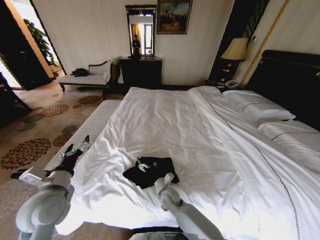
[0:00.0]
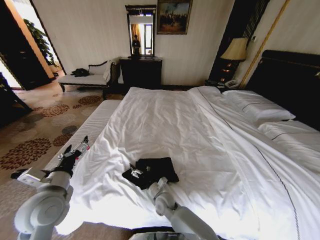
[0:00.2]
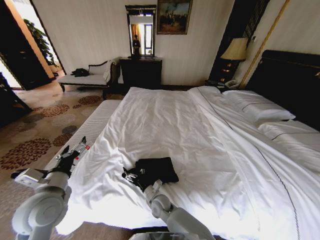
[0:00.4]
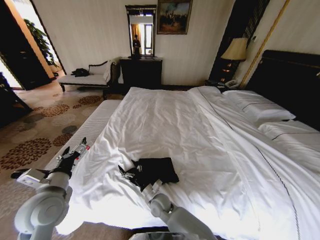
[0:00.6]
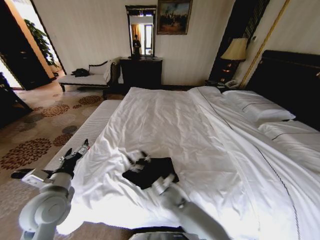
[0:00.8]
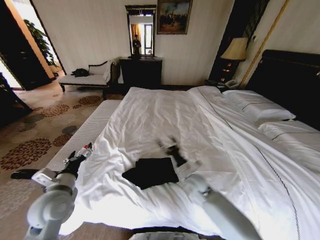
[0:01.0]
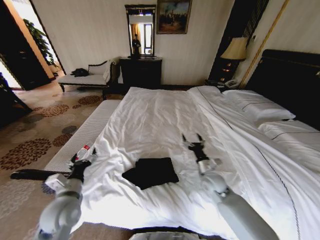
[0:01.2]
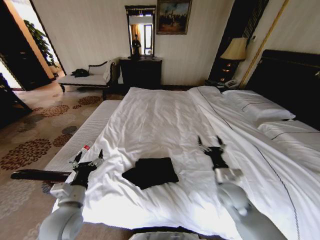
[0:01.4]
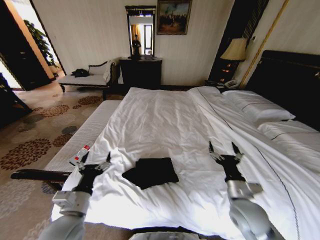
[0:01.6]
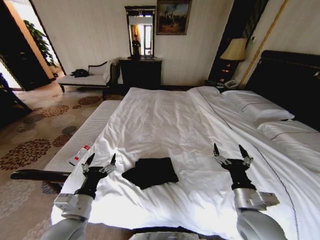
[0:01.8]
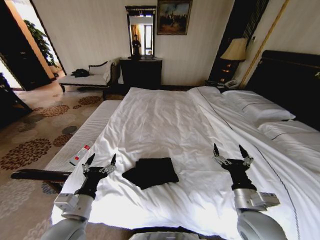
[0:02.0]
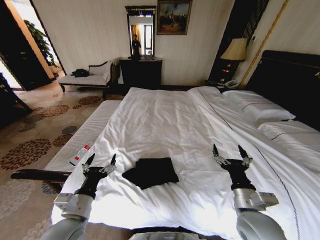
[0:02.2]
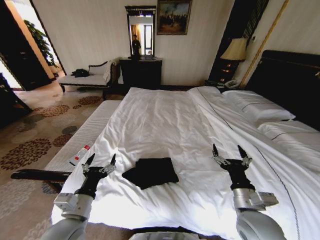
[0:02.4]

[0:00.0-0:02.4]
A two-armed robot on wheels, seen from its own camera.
Task of the whole recording: Fold the clothes on the bed.
0:00.0 to 0:01.2: The right gripper goes approximately 20 cm to the right and upward, while the left gripper goes some 5 cm downward.
0:01.2 to 0:02.4: The right gripper goes approximately 20 cm backward and upward. Meanwhile the left gripper travels backward and to the right by some 10 cm.

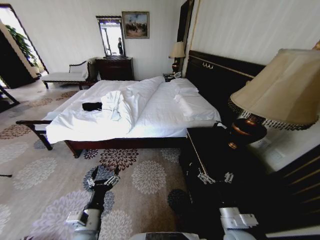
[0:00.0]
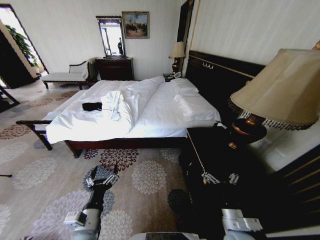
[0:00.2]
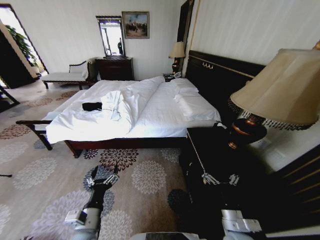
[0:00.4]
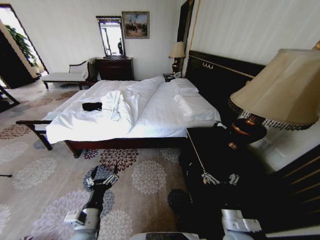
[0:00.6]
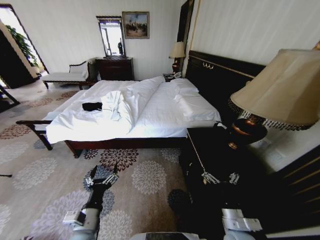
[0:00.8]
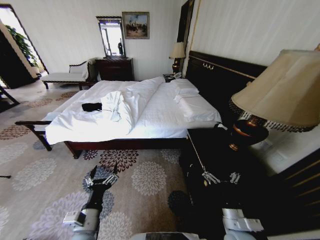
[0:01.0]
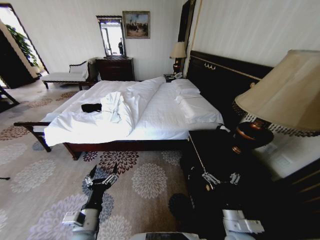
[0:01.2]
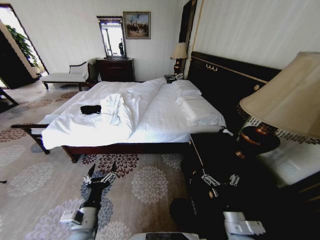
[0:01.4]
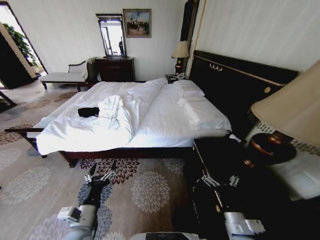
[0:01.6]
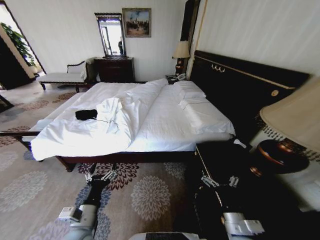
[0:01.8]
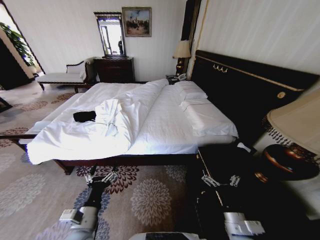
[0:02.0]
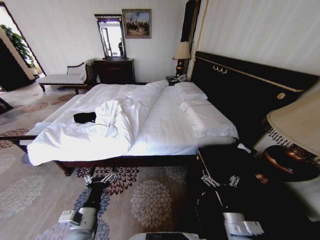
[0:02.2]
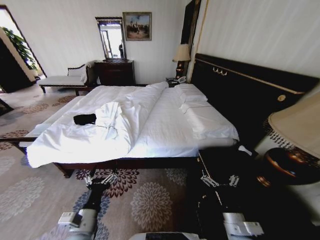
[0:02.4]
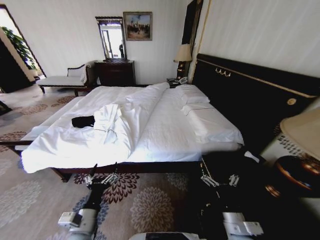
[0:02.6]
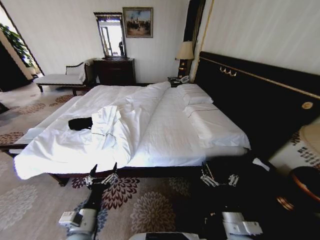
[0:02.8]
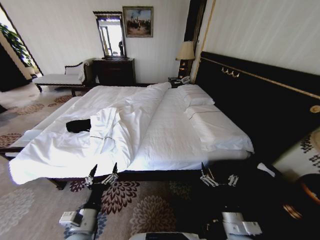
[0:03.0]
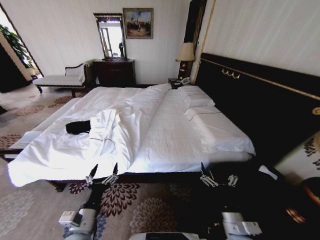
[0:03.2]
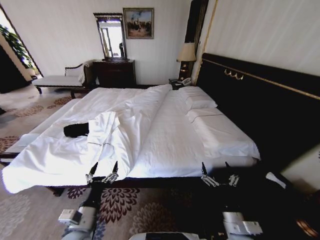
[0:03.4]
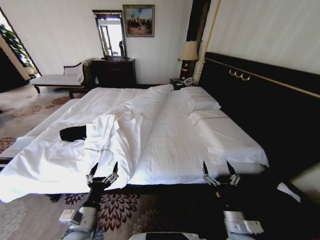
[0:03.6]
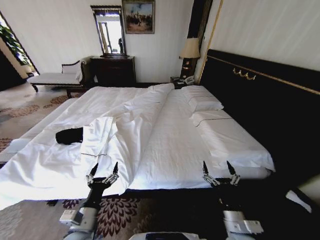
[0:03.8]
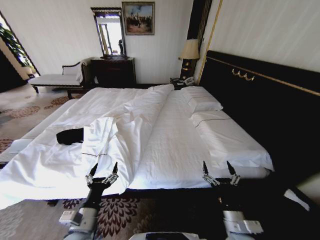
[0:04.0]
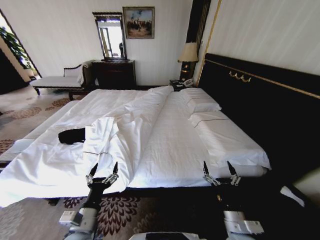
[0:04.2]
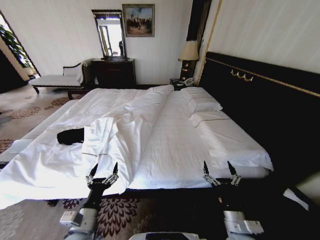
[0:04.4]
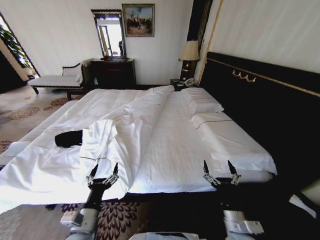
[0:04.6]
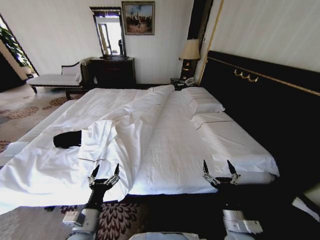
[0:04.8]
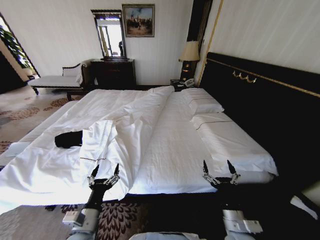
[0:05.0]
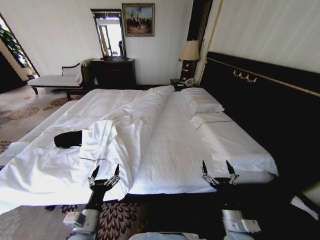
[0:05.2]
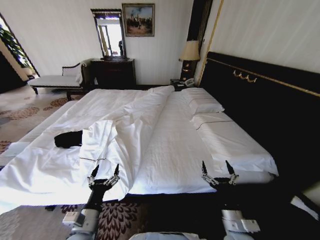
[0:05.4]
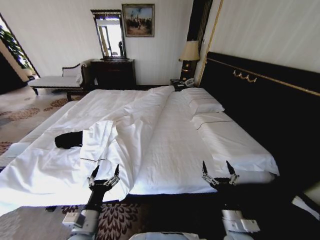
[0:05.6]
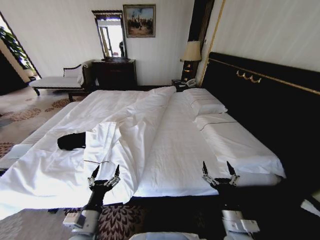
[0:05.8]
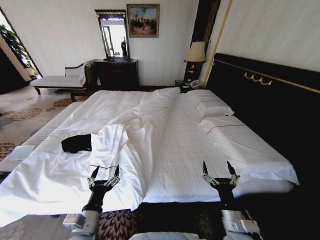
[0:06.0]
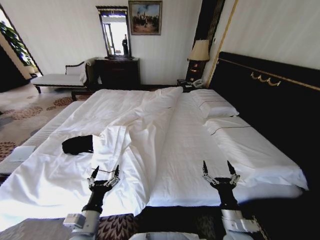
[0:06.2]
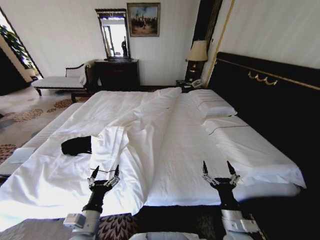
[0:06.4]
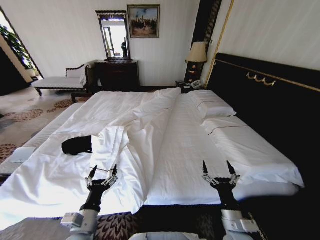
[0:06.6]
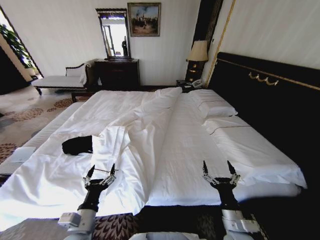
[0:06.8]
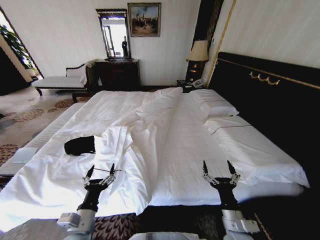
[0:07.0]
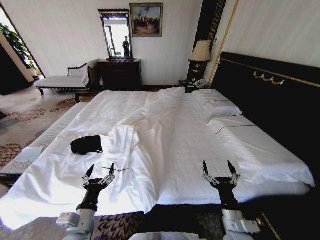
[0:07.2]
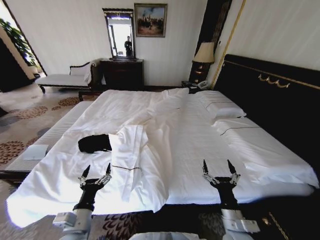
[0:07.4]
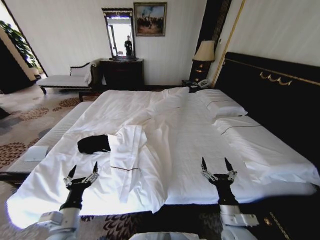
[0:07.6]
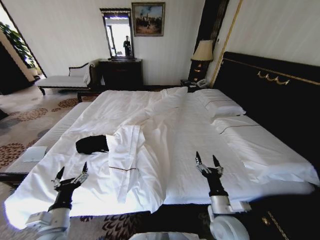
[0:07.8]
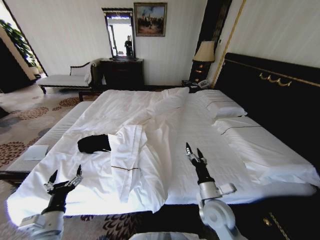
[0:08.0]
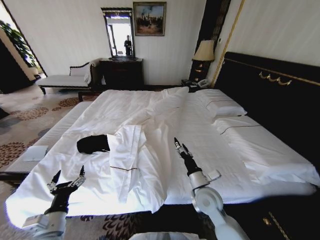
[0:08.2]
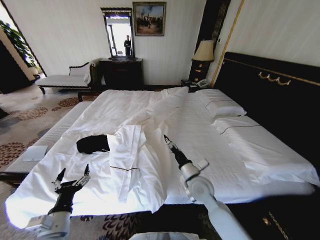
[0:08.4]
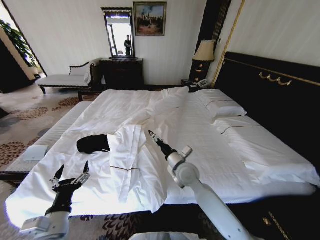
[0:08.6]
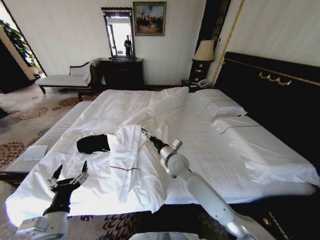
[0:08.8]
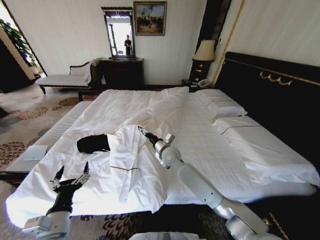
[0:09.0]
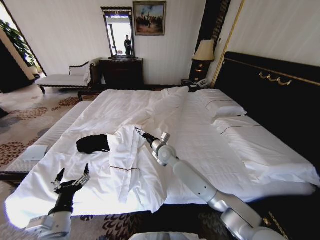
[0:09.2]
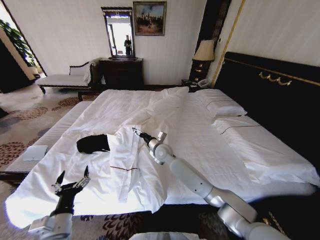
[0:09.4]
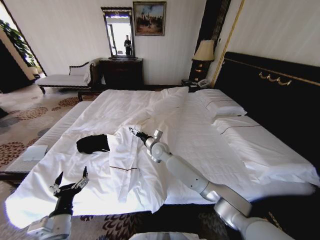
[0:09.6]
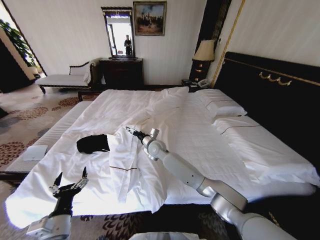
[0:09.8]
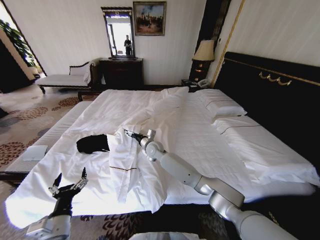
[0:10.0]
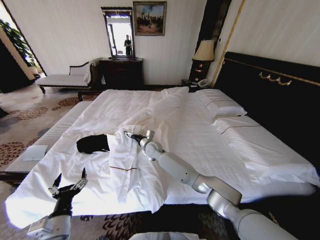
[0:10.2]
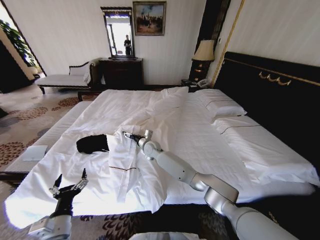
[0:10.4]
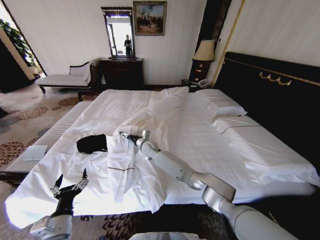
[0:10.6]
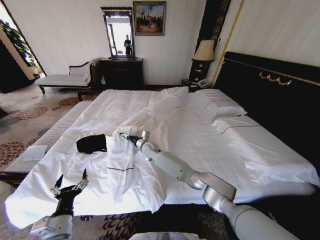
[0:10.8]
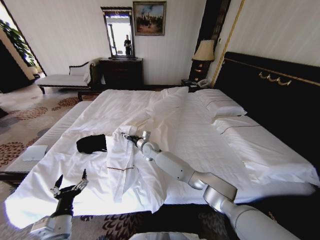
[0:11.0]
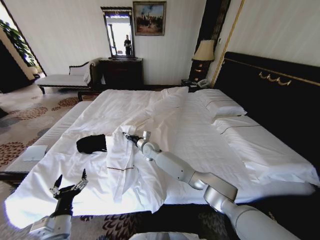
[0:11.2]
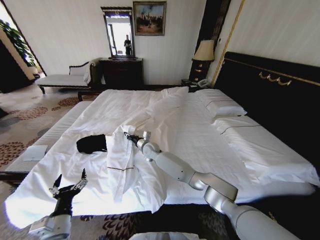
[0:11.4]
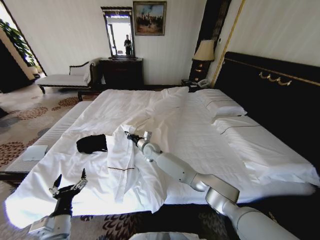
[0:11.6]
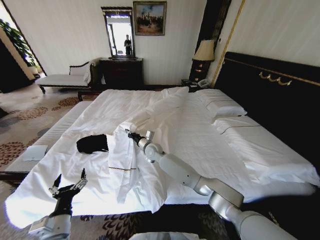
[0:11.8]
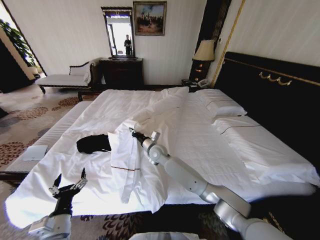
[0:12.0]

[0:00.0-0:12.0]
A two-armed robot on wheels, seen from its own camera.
Task of the whole recording: Fold the clothes on the bed.
0:06.0 to 0:07.6: The left gripper goes some 5 cm to the left.
0:07.6 to 0:09.0: The right gripper heads forward and to the left, covering approximately 35 cm.
0:09.0 to 0:10.4: The right gripper travels to the left and forward by about 10 cm.
0:10.4 to 0:12.0: The right gripper moves approximately 5 cm, and closes.

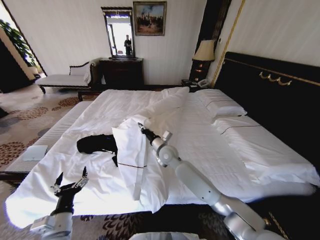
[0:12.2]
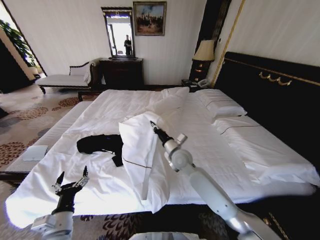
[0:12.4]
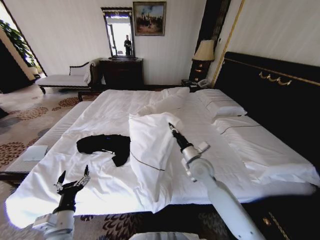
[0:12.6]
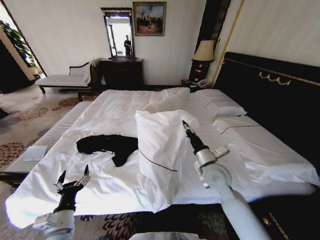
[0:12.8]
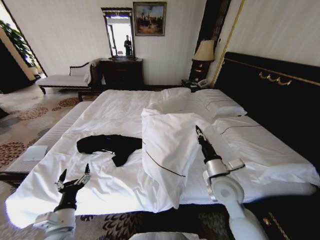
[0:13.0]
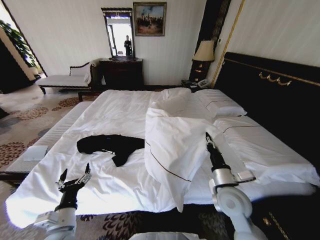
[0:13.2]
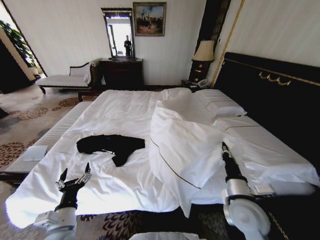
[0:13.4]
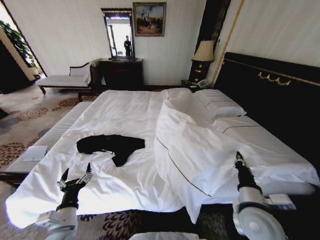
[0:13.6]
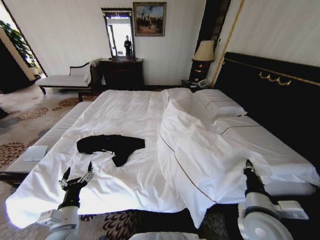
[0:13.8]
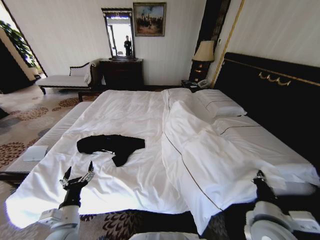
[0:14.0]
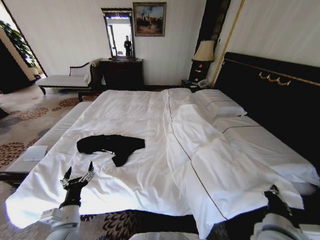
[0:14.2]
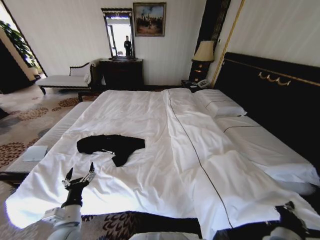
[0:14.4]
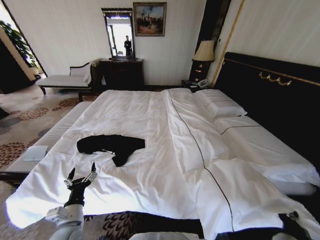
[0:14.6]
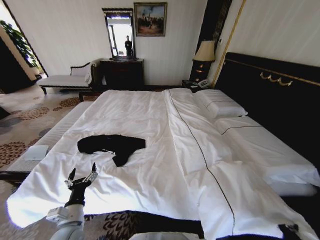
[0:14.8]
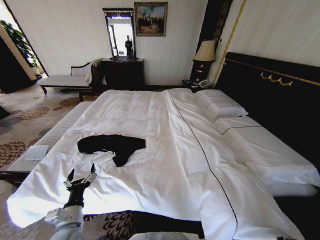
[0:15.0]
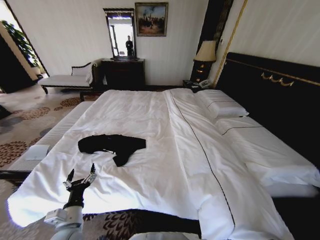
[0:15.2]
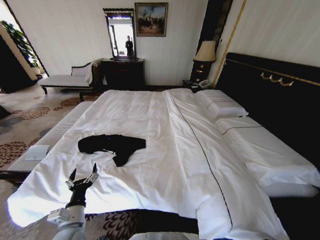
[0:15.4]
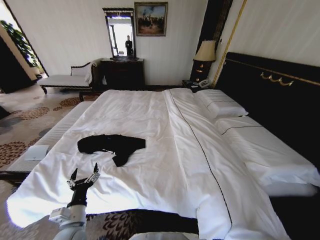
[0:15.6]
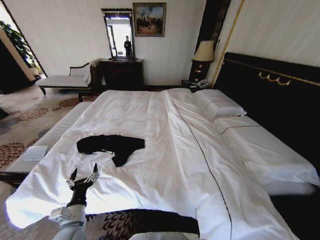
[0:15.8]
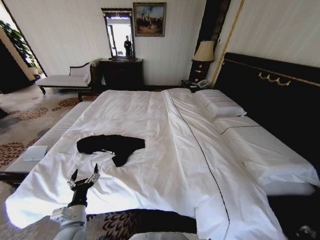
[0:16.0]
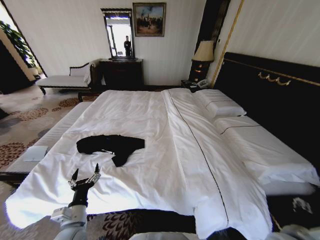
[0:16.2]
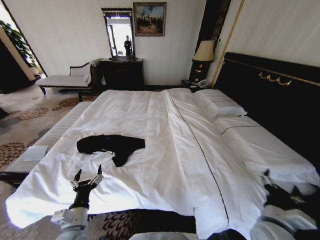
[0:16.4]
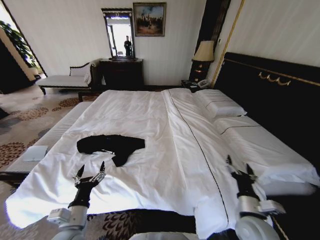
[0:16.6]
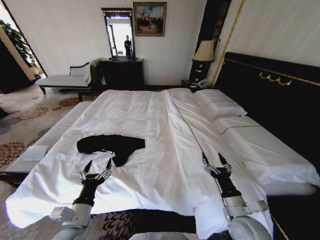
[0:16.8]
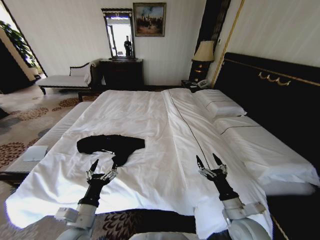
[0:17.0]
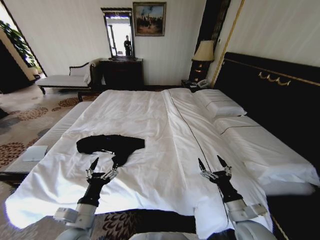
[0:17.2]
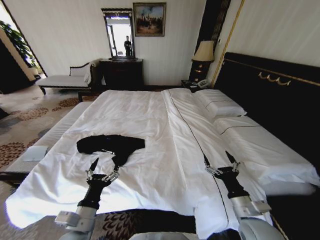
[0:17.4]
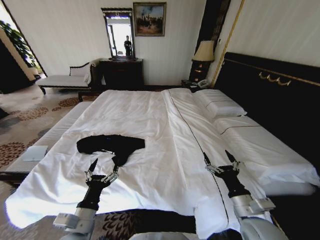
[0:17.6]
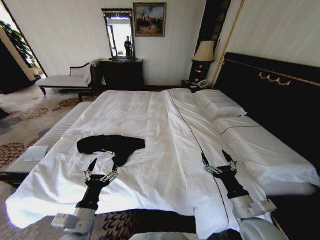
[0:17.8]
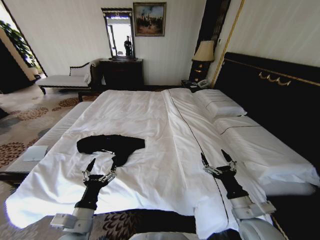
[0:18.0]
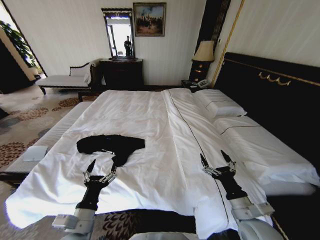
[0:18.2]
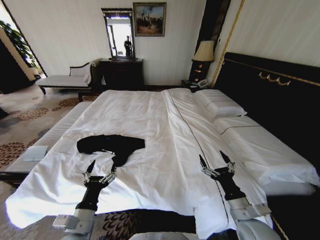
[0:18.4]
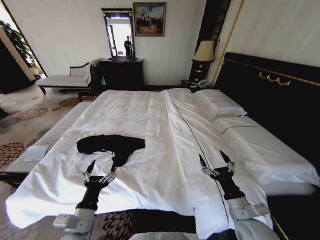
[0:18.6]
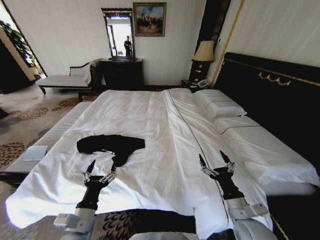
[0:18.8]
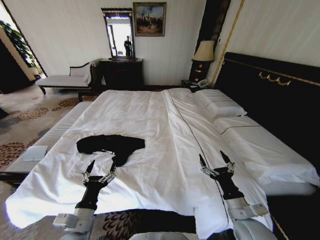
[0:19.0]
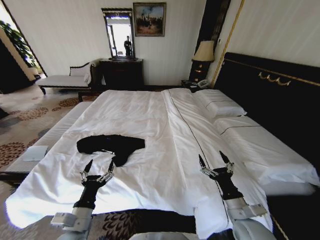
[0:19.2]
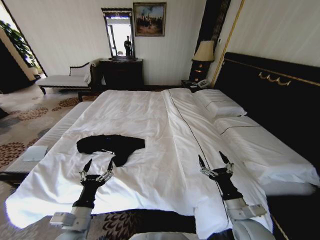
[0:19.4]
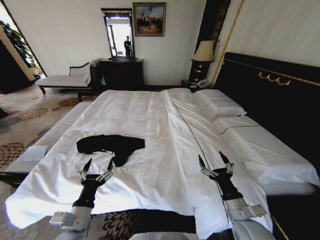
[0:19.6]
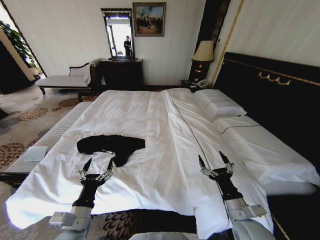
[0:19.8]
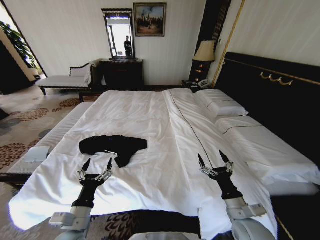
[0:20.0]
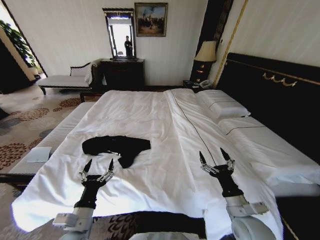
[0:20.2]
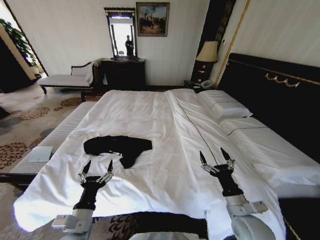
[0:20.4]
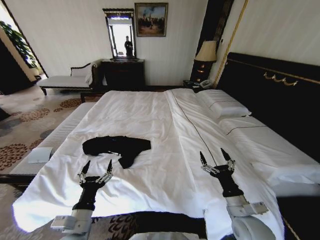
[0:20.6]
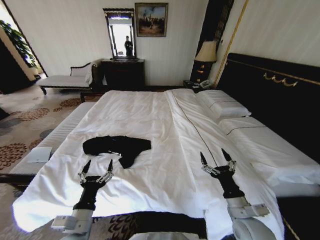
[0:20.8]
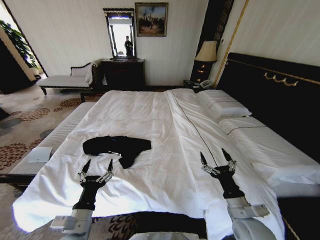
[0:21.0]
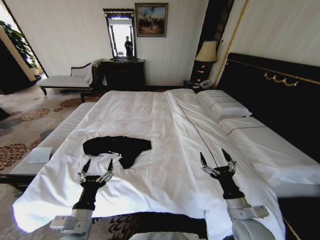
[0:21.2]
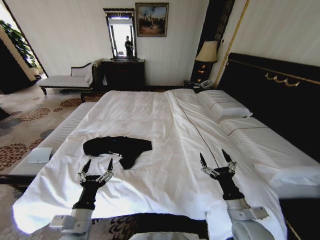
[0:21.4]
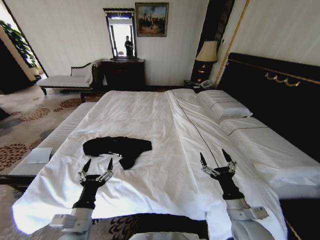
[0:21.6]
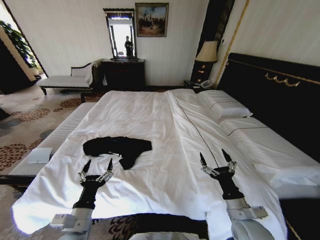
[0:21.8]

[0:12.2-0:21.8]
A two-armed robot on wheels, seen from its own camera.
Task of the whole recording: Fold the clothes on the bed.
0:12.2 to 0:13.8: The right gripper travels backward and to the right by some 35 cm.
0:13.8 to 0:15.4: The right gripper moves downward, roughly 25 cm.
0:15.4 to 0:17.0: The left gripper ends up approximately 5 cm from where it was. The right gripper is displaced upward, forward and to the left by roughly 20 cm, and opens its fingers.
0:18.6 to 0:20.2: The two grippers keep their place.
0:20.2 to 0:21.8: The two grippers keep their place.
